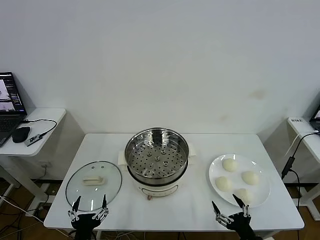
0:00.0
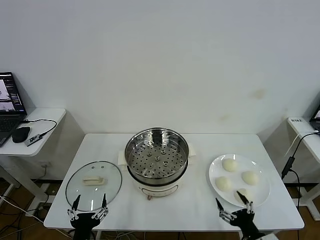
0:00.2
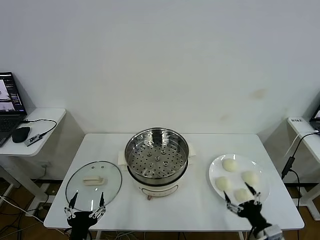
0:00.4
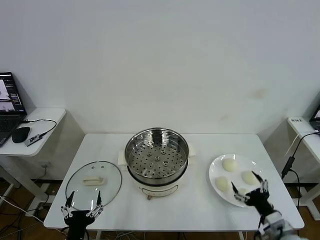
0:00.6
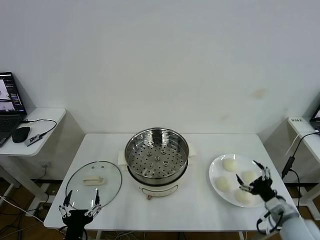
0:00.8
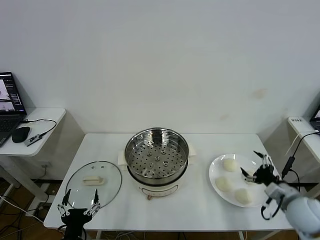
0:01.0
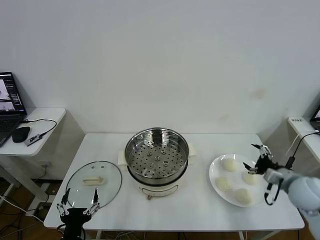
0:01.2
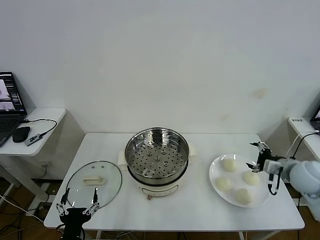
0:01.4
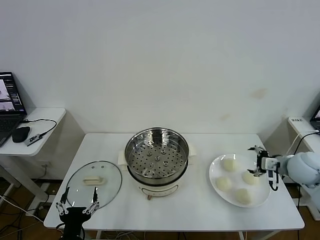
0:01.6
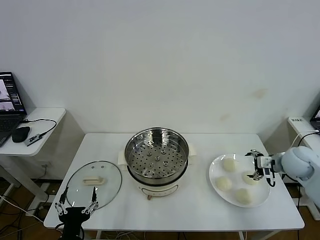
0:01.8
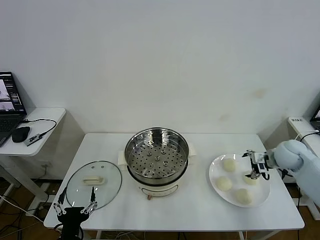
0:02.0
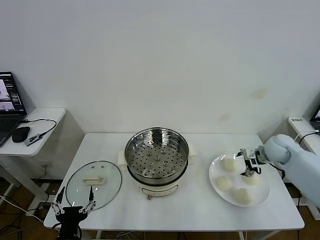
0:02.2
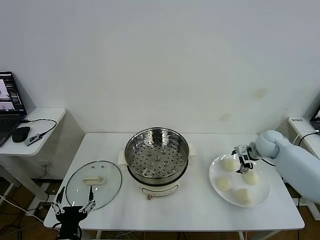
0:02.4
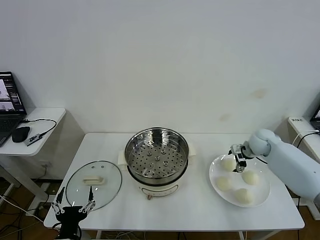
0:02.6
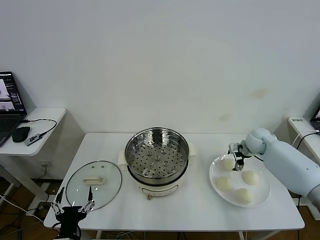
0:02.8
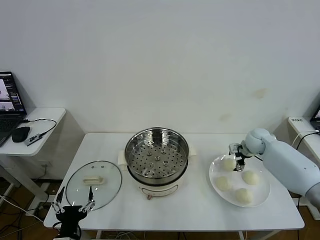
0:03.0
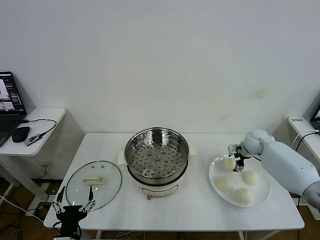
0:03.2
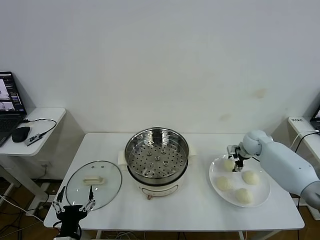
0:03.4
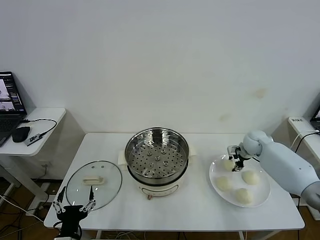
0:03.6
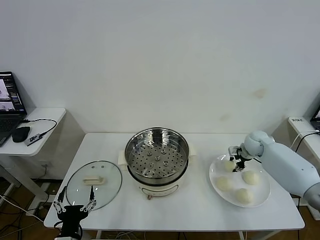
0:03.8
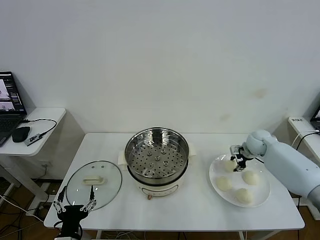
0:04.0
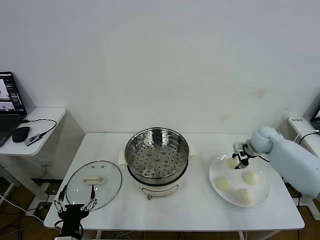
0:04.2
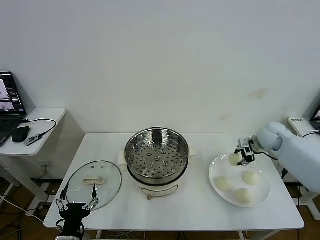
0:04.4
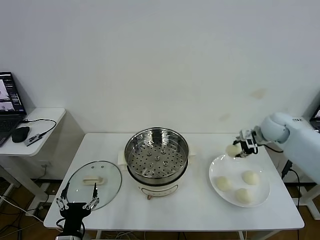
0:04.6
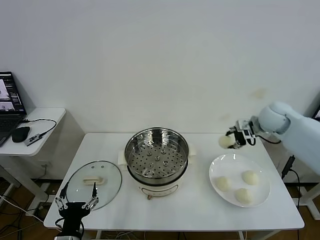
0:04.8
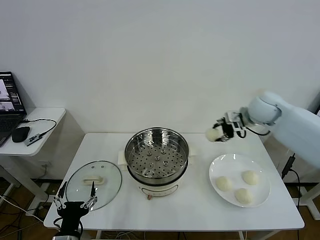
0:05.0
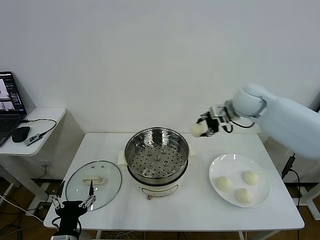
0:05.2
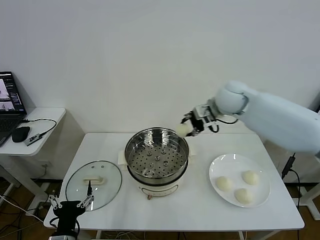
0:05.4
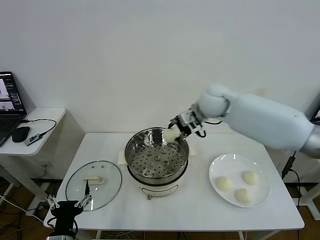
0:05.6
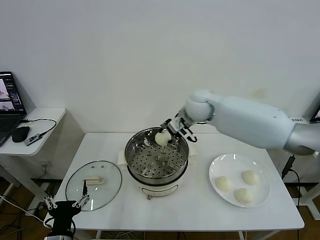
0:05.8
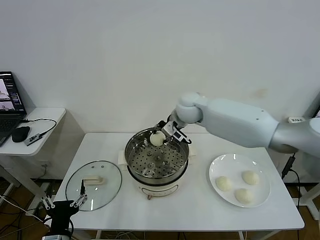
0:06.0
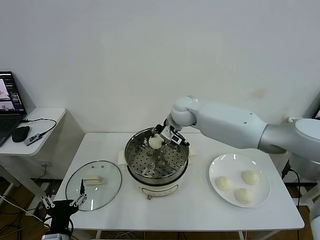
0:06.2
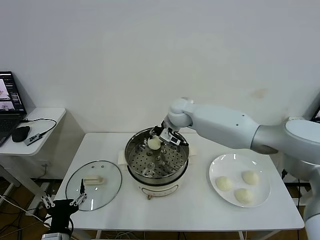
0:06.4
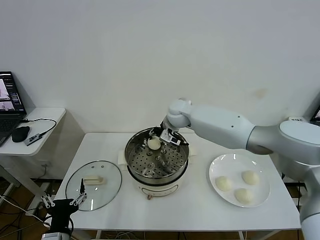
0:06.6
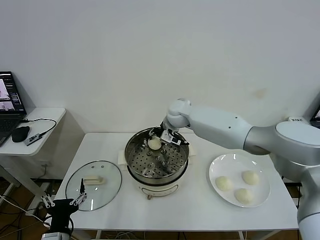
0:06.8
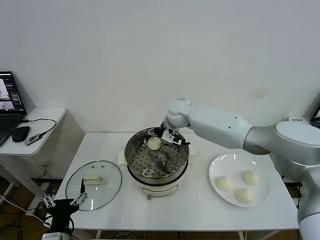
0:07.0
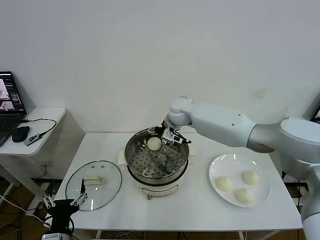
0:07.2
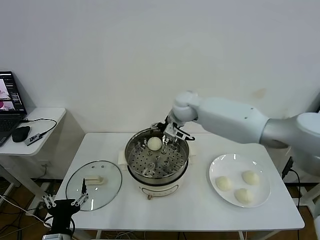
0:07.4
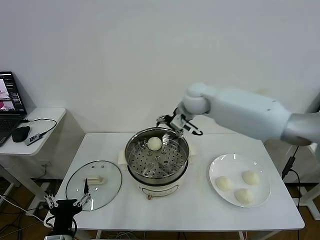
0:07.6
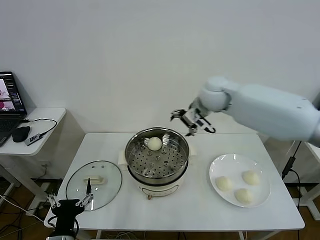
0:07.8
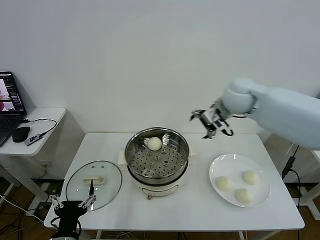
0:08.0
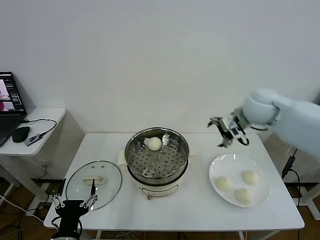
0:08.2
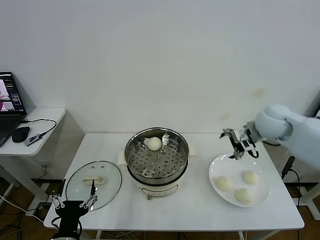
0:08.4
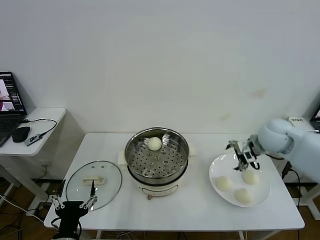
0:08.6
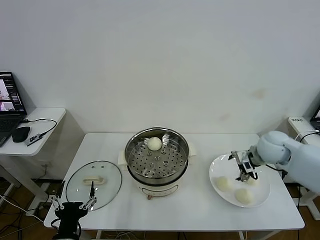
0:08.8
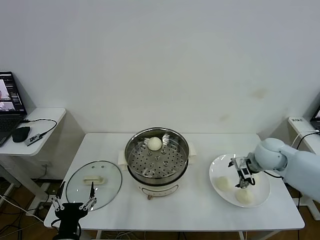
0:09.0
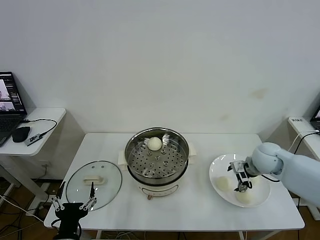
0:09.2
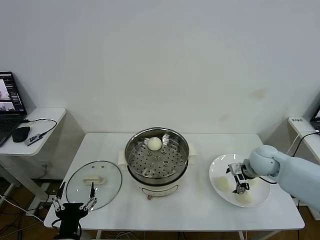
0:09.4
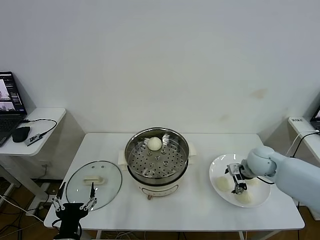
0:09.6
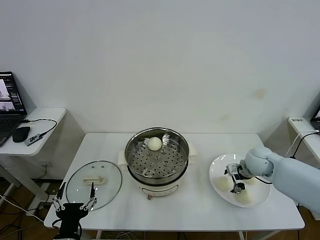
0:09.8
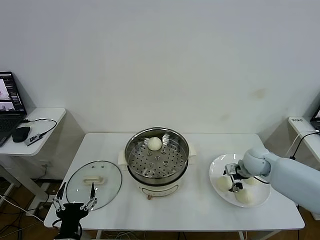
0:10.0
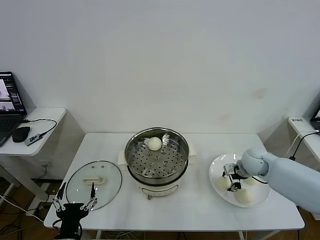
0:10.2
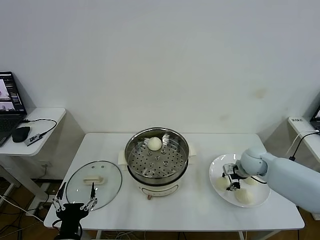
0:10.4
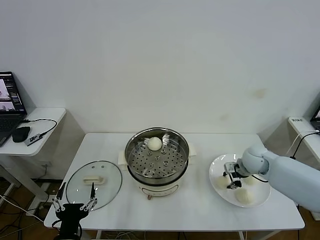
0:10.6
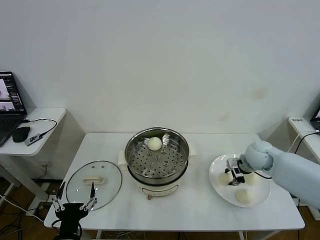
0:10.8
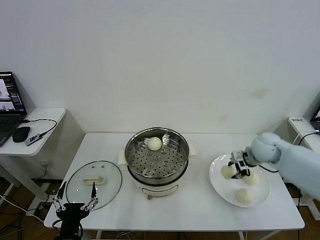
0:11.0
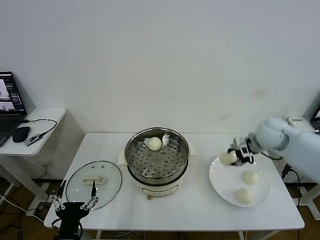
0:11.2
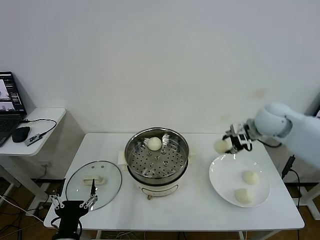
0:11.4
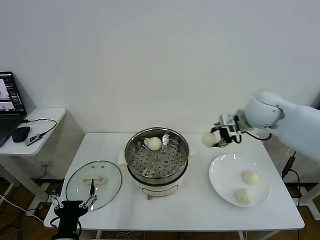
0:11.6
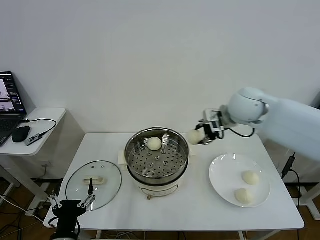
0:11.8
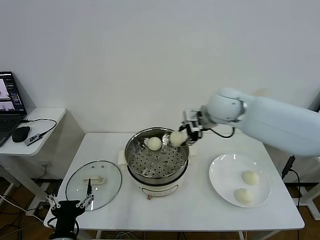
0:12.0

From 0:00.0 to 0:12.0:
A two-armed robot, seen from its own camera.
Task of the whole recording: take steamed baozi put them in steamer then cover it.
Step, from 0:00.0 to 0:03.4: Grasp the baozi in the plate with right gripper.
Step, from 0:03.8 to 0:06.8: Place the baozi on the steamer with right gripper.
Step, from 0:07.0 to 0:10.4: Grasp the baozi in the plate with right gripper.
From 0:01.6 to 0:03.0: The right gripper goes about 15 cm forward.
From 0:03.0 to 0:04.4: The right gripper travels upward by some 5 cm, and closes its fingers.
From 0:04.4 to 0:06.0: The right gripper moves to the left, roughly 30 cm.
From 0:06.0 to 0:07.6: The right gripper opens up.
From 0:07.6 to 0:09.0: The right gripper heads to the right, downward and backward, covering approximately 30 cm.
From 0:09.0 to 0:10.4: The right gripper is displaced downward by roughly 5 cm, and closes.
From 0:10.4 to 0:12.0: The right gripper goes approximately 25 cm upward and to the left.

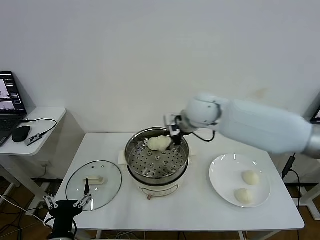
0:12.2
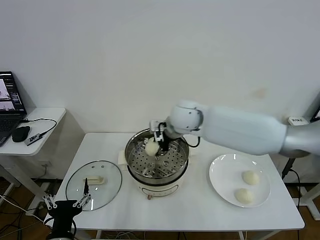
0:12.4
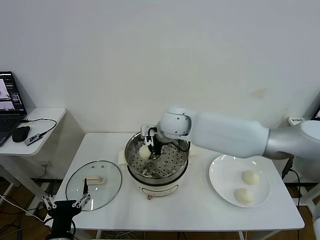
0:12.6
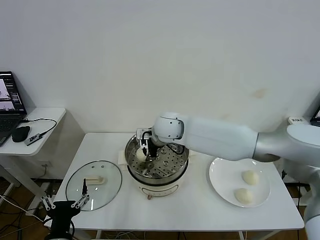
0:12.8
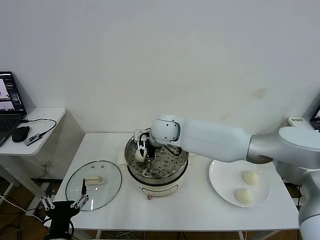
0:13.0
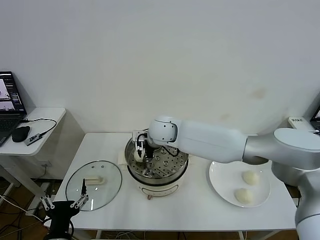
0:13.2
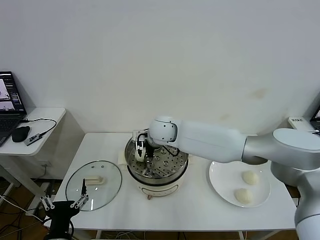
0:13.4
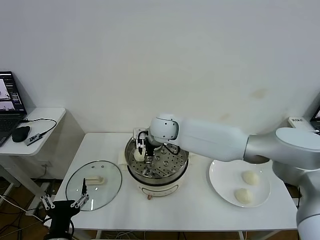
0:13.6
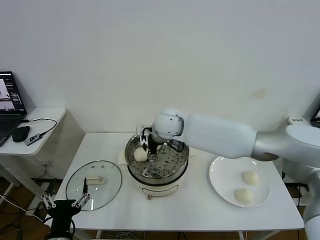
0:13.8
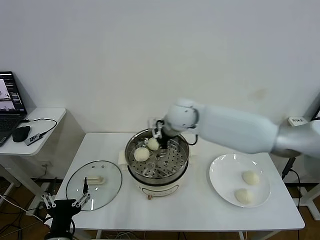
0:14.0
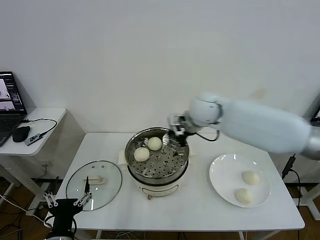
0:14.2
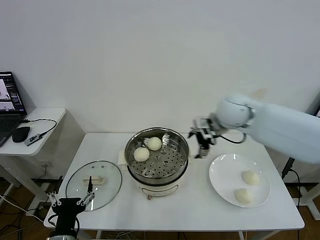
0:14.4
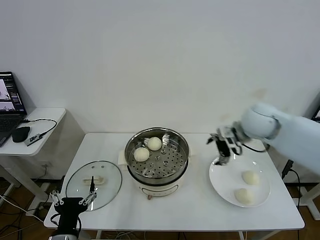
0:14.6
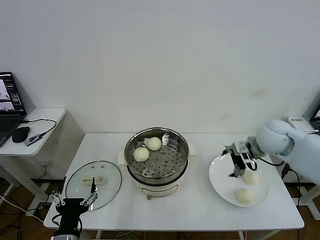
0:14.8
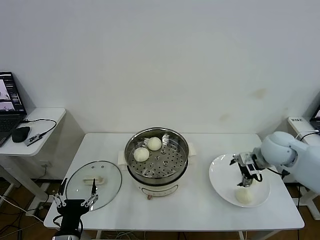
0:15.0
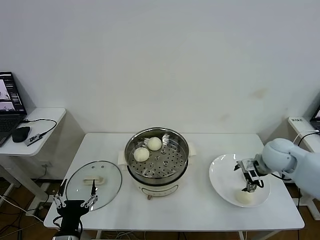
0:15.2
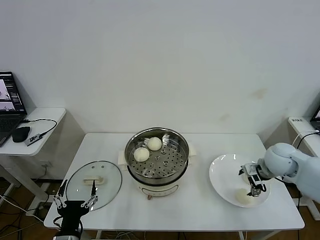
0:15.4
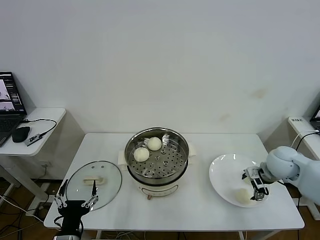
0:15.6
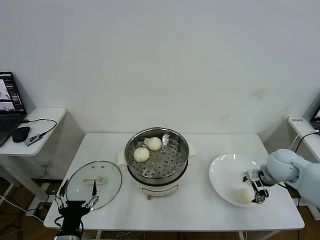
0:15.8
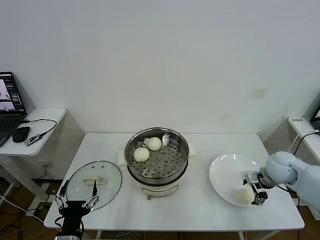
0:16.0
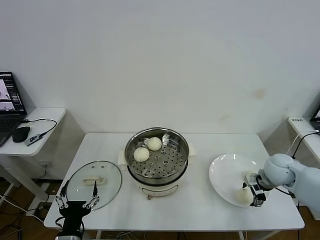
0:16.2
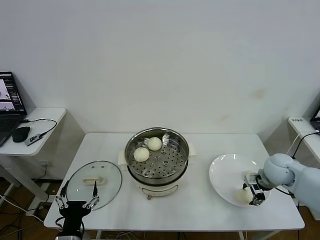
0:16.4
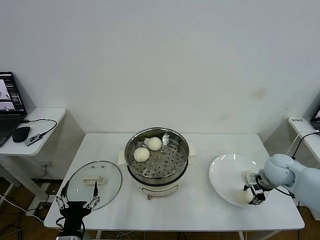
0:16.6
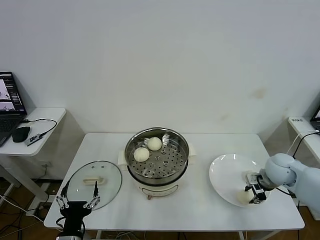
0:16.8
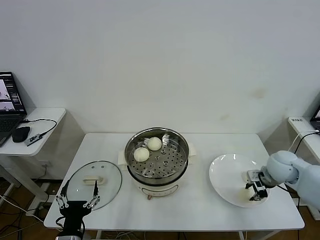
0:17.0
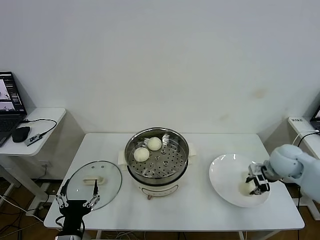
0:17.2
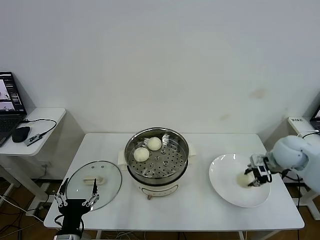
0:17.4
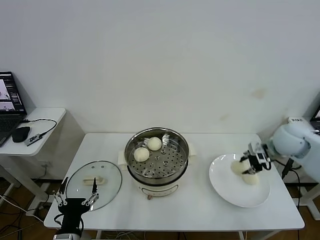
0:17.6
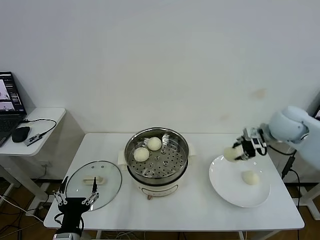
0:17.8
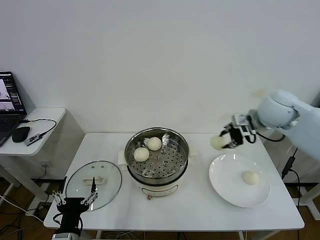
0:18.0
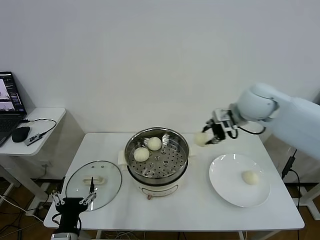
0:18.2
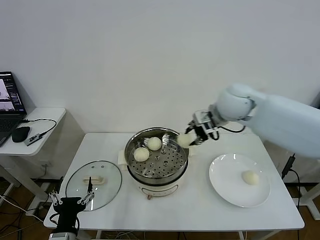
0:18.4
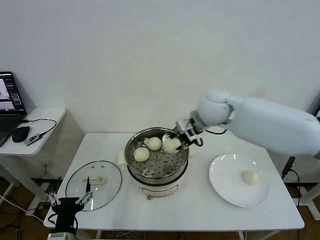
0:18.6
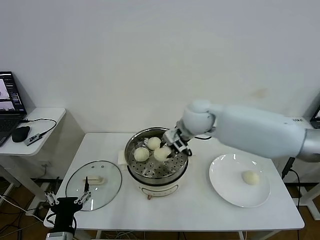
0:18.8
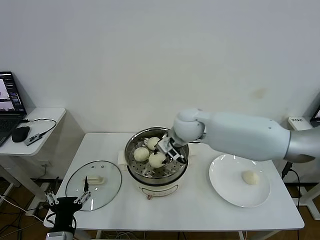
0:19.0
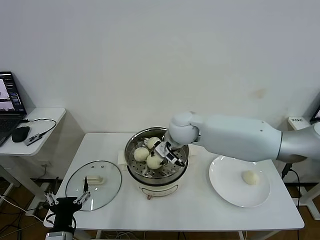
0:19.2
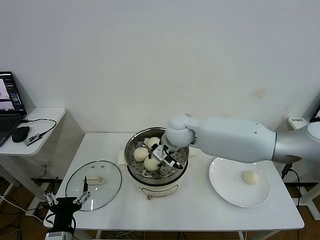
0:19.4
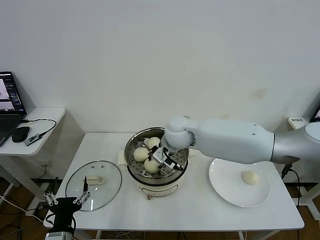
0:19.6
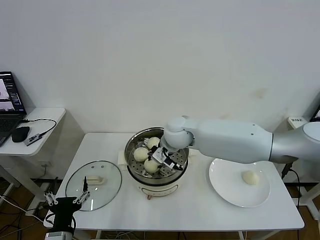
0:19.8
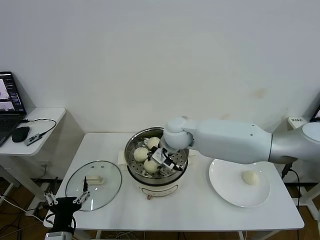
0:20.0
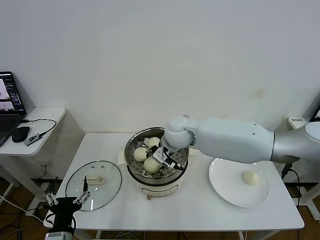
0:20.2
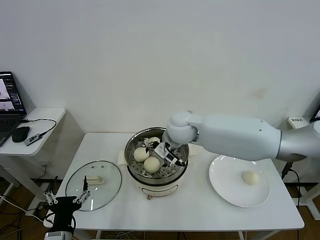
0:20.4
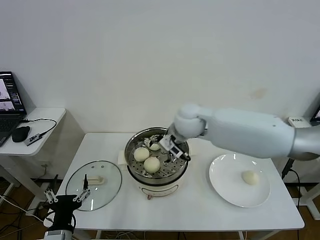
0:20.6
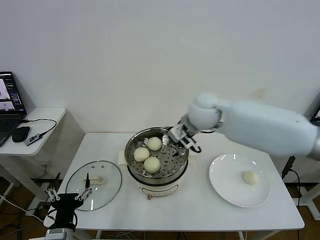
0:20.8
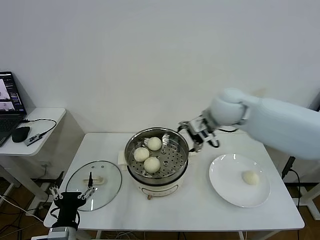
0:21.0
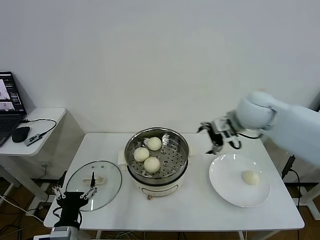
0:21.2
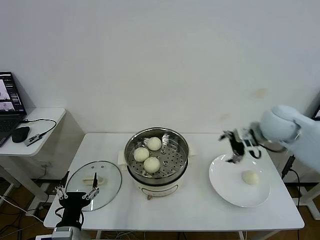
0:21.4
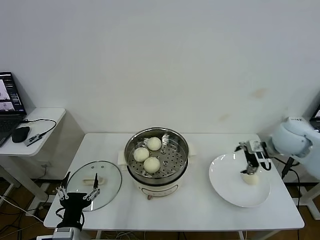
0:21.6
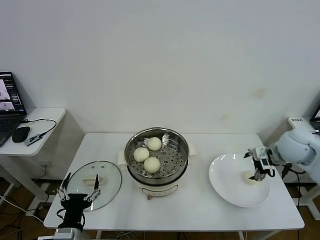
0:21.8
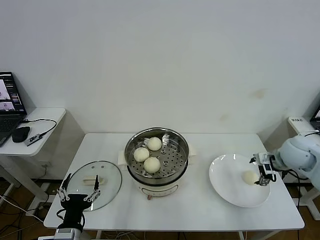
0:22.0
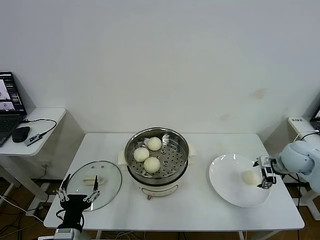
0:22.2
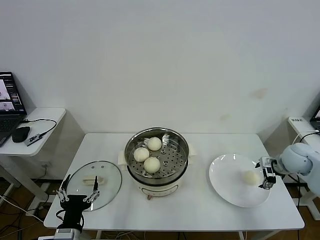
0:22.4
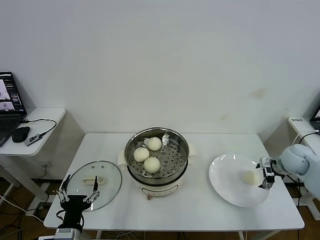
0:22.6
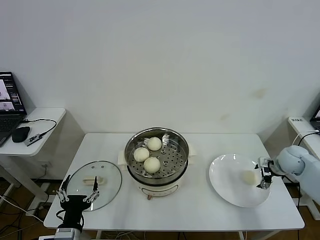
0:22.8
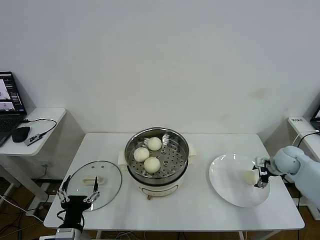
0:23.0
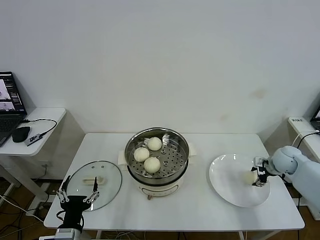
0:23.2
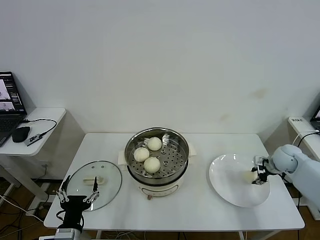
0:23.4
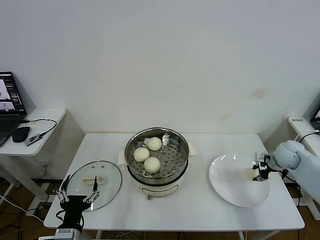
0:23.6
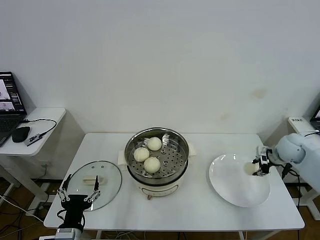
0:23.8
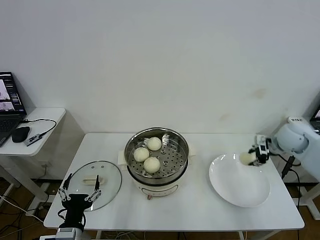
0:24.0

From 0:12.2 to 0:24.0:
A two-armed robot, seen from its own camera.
Task of the whole recording: take steamed baozi put them in steamer then cover it.
Step, from 0:13.6 to 0:16.6: Grasp the baozi in the plate with right gripper.
Step, from 0:16.8 to 0:20.2: Place the baozi on the steamer with right gripper.
Step, from 0:20.4 to 0:23.4: Grasp the baozi in the plate with right gripper.
From 0:12.2 to 0:13.6: The right gripper heads to the left and downward, covering approximately 15 cm, and opens its fingers.
From 0:13.6 to 0:15.2: The right gripper shifts some 35 cm to the right.
From 0:15.2 to 0:16.6: The right gripper moves downward, approximately 5 cm, and closes up.
From 0:16.6 to 0:18.2: The right gripper goes roughly 25 cm upward and to the left.
From 0:18.2 to 0:19.6: The right gripper travels to the left and downward by some 25 cm.
From 0:19.6 to 0:21.0: The right gripper moves to the right and upward, about 15 cm, and opens its fingers.
From 0:21.0 to 0:22.6: The right gripper moves to the right and downward, approximately 35 cm.
From 0:22.6 to 0:24.0: The right gripper moves upward, some 5 cm, and closes up.
